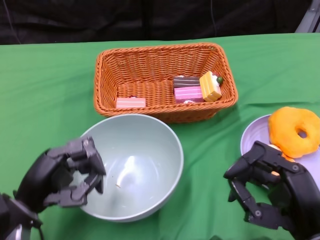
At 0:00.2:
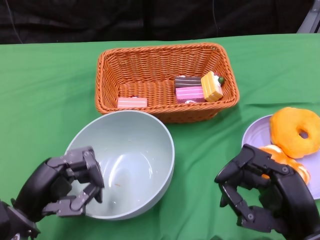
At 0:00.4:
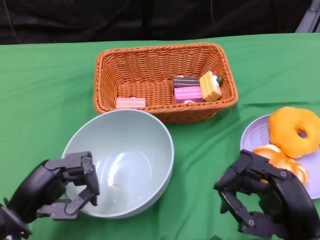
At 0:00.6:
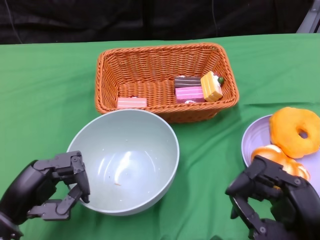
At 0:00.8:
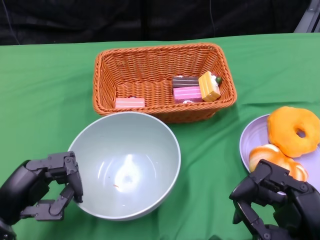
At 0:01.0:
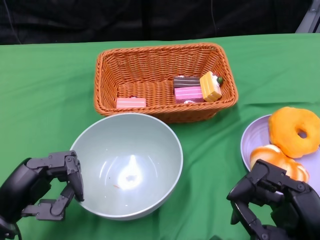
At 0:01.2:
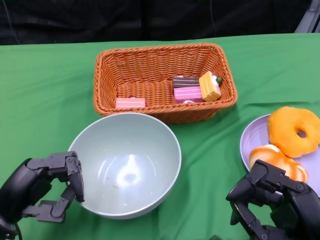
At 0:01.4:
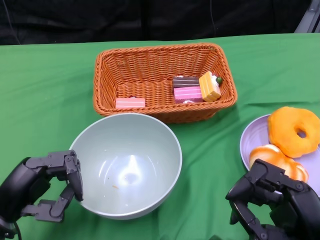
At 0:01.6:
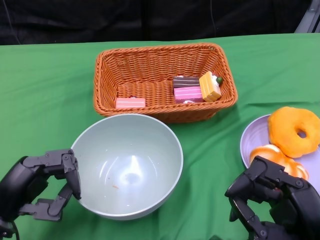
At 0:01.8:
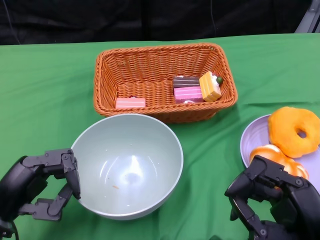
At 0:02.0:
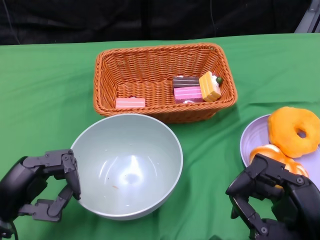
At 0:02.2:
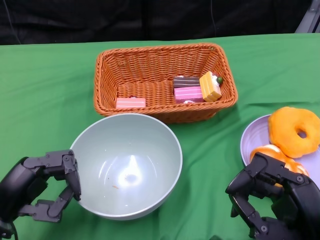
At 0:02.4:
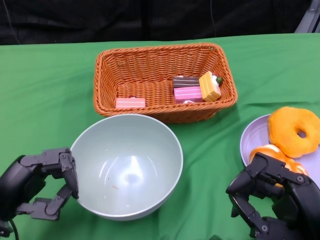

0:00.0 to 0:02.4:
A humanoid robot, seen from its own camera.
0:00.0 to 0:01.2: The hands make only small movements.
0:01.2 to 0:02.4: Both hands stay put.
